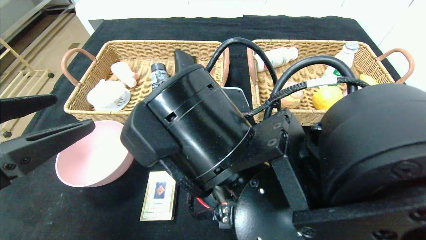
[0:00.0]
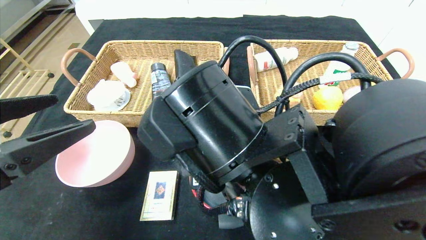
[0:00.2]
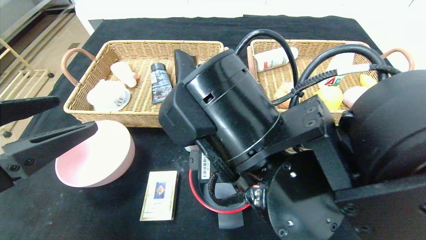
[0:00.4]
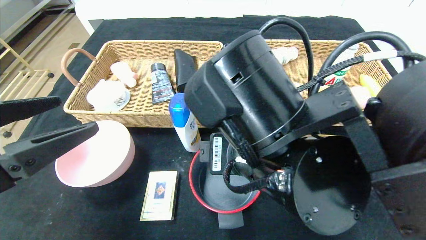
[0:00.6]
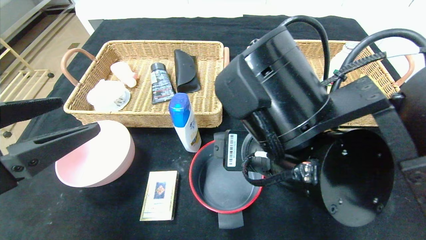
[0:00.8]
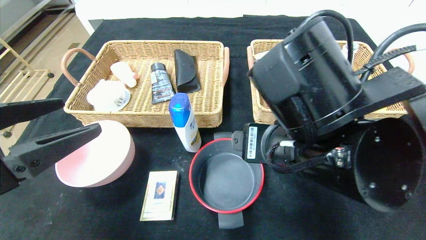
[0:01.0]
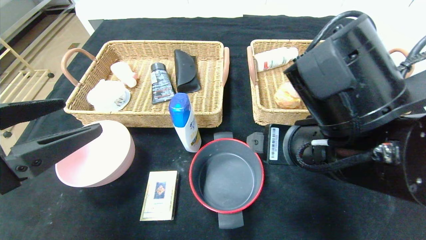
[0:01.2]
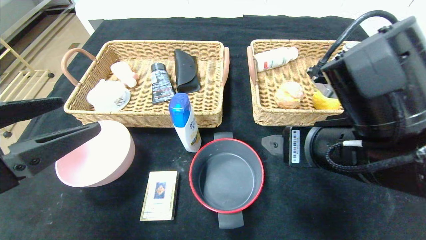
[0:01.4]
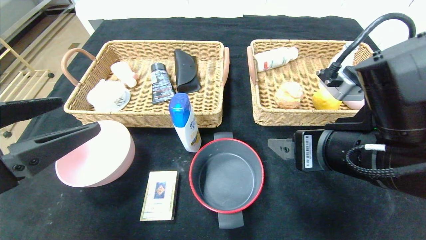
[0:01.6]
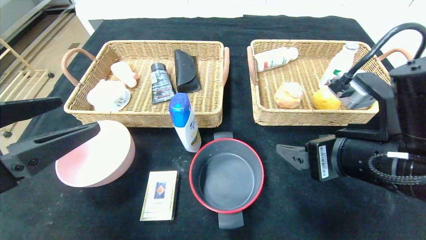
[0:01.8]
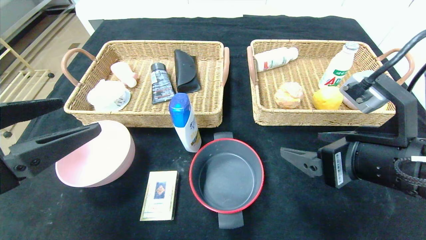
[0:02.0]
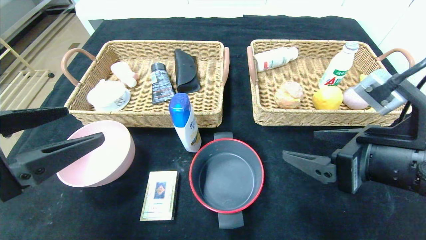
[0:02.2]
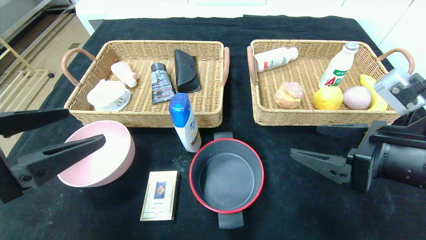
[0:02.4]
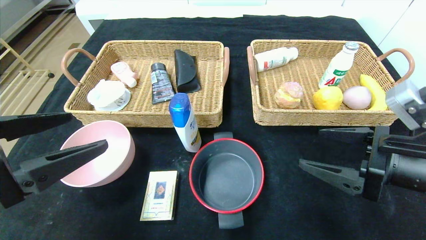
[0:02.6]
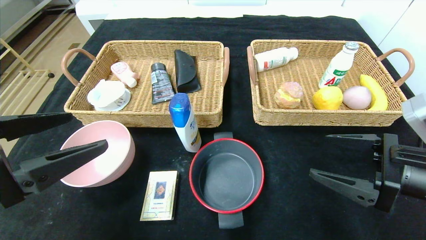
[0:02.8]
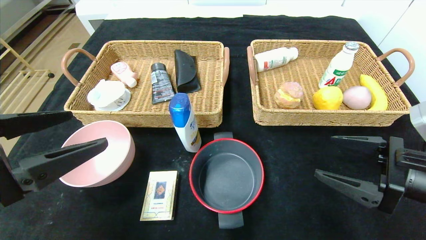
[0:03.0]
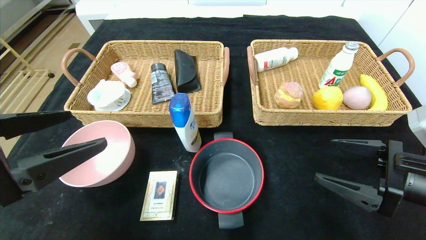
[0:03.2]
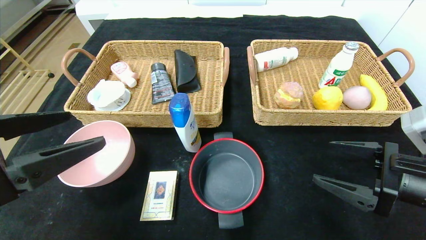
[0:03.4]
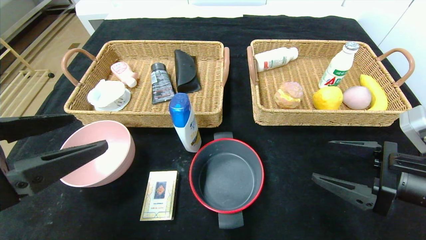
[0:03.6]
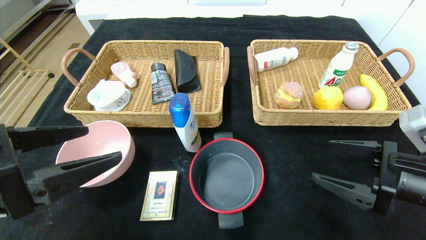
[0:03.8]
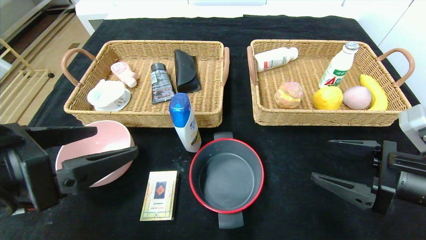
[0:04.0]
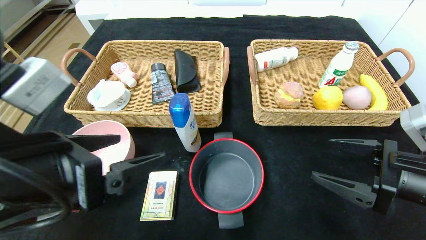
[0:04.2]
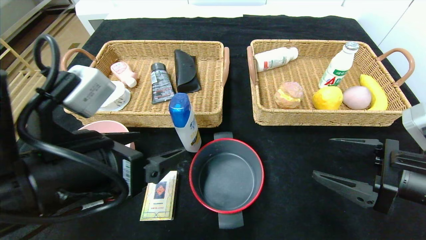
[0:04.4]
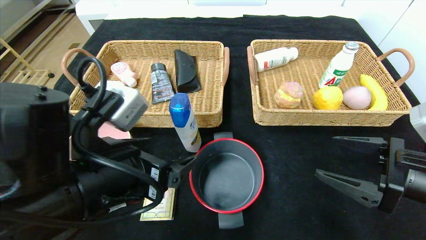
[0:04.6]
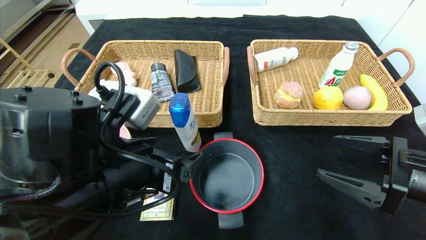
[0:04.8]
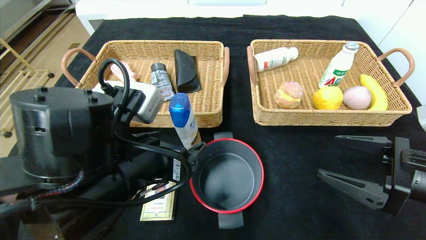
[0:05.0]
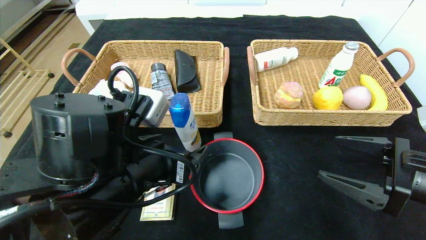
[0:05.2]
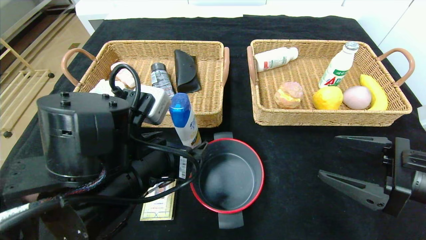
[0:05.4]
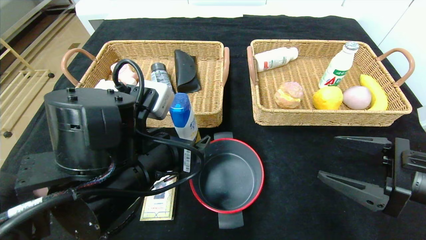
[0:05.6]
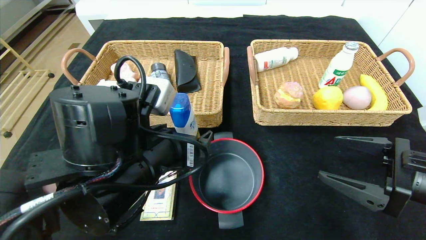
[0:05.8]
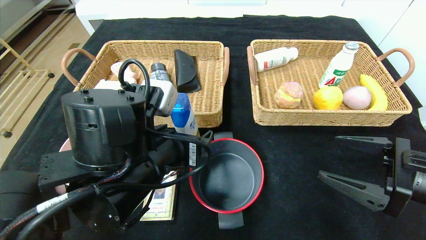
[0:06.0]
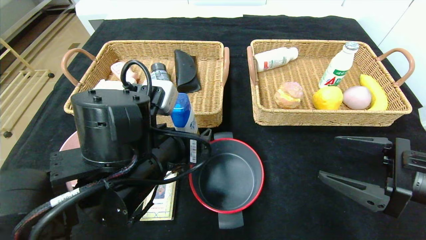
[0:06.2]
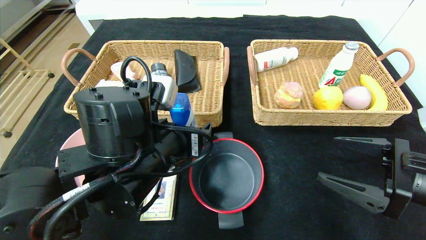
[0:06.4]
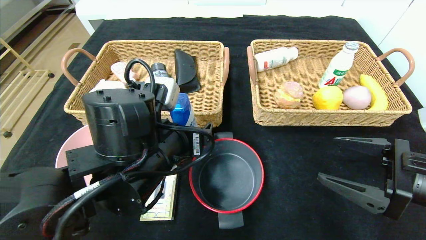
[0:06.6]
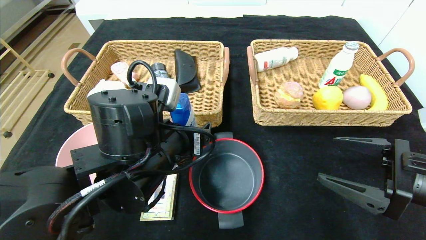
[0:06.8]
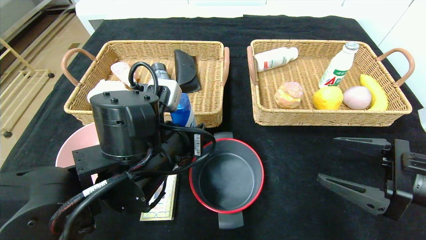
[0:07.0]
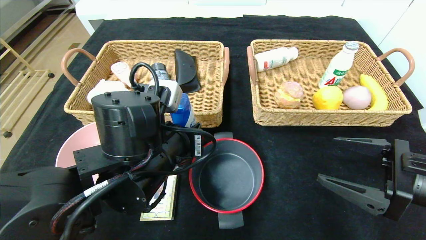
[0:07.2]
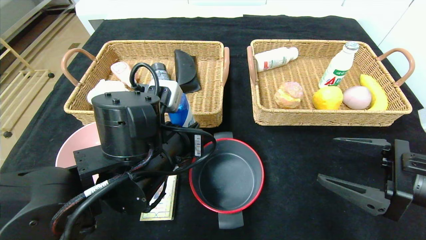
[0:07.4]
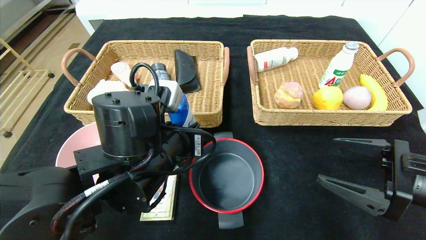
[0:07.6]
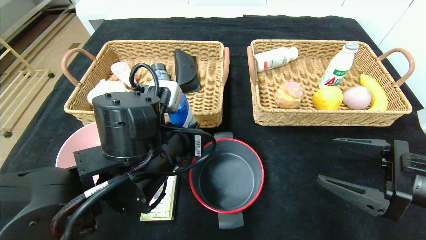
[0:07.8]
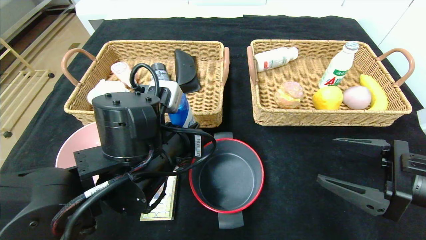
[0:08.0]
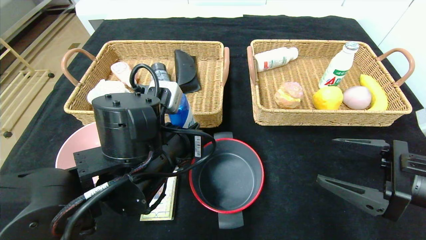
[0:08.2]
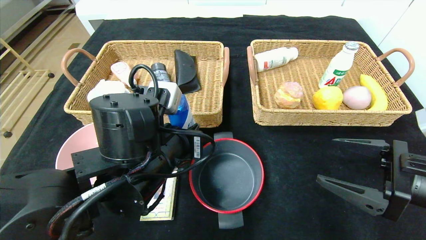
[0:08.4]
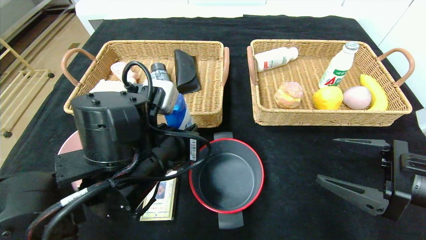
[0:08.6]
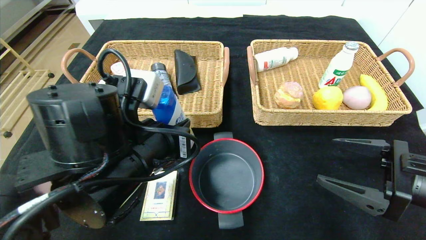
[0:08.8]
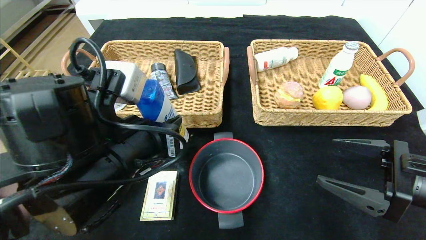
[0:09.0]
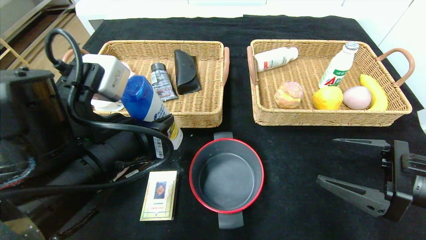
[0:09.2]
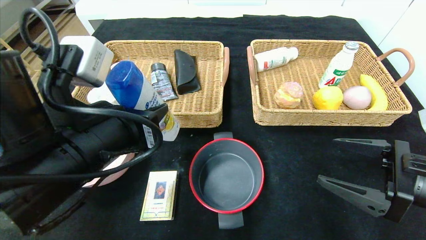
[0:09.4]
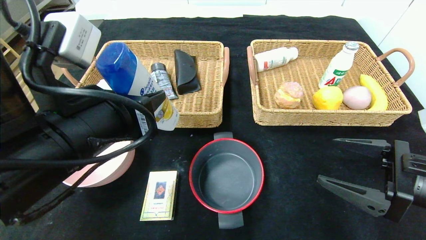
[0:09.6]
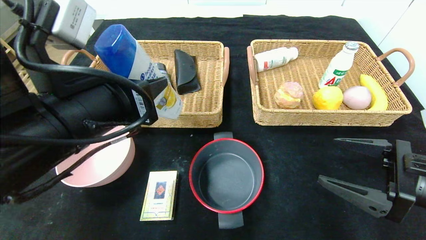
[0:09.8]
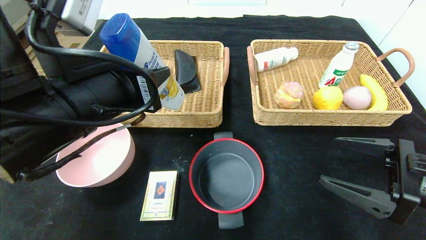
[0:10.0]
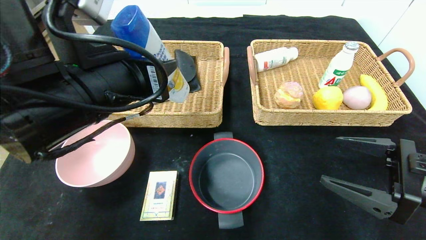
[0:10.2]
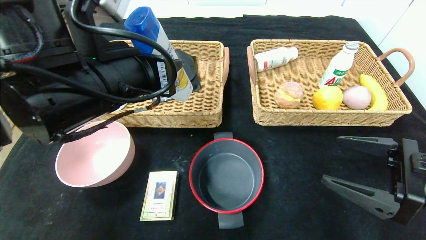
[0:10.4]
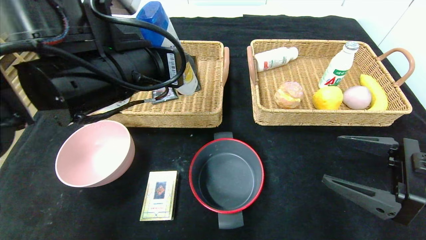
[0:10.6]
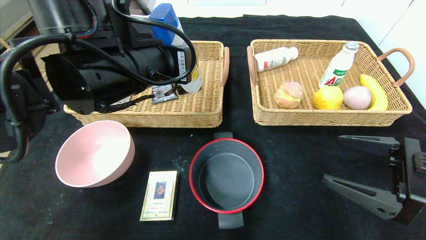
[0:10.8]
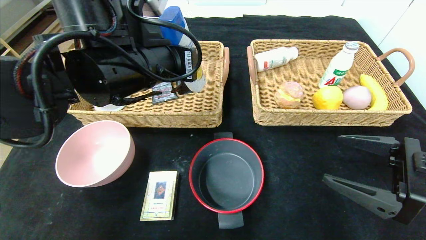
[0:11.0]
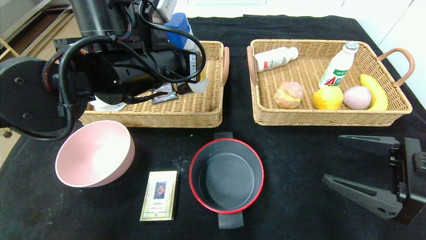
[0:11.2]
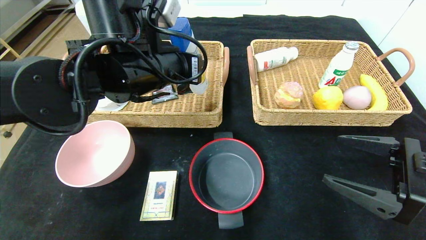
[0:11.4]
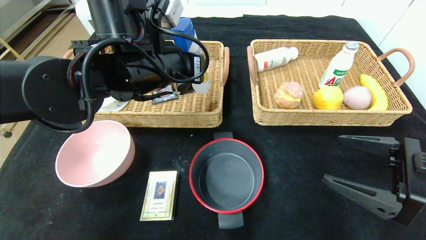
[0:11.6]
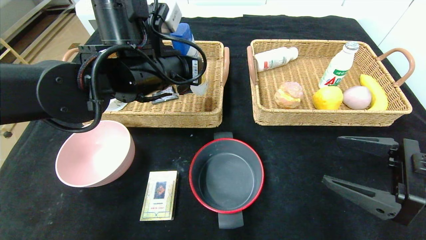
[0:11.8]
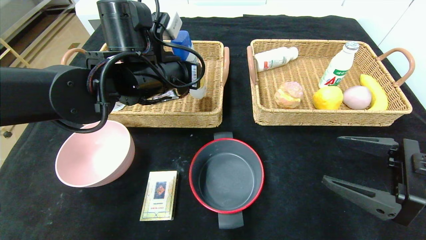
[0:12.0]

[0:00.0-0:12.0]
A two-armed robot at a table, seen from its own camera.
0:00.0 to 0:01.6: The right gripper moves to the right, approximately 15 cm.
0:01.6 to 0:03.0: The right gripper goes roughly 15 cm to the right and downward.
0:03.0 to 0:04.4: The left gripper travels to the right by approximately 10 cm.
0:04.4 to 0:06.0: The left gripper heads to the right and forward, covering roughly 10 cm.
0:06.0 to 0:07.6: The left gripper closes up.
0:07.6 to 0:09.0: The left gripper ends up roughly 5 cm from where it was.
0:09.0 to 0:10.4: The left gripper moves upward, approximately 10 cm.
0:10.4 to 0:12.0: The left gripper goes roughly 10 cm forward.

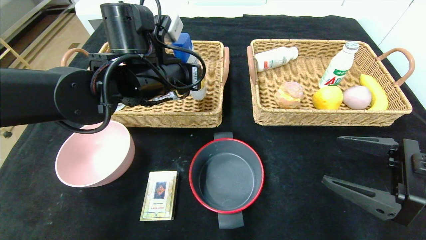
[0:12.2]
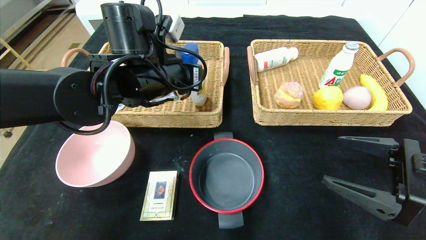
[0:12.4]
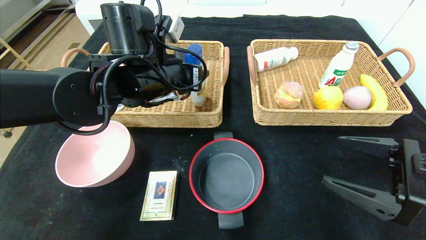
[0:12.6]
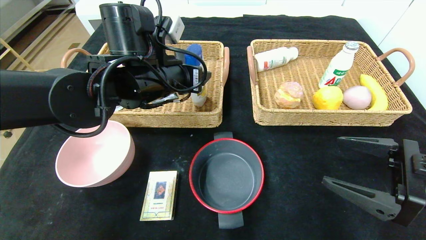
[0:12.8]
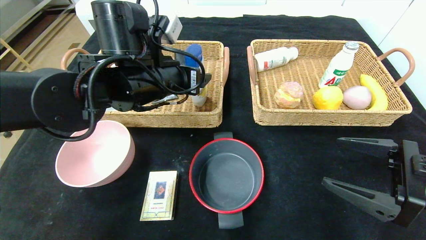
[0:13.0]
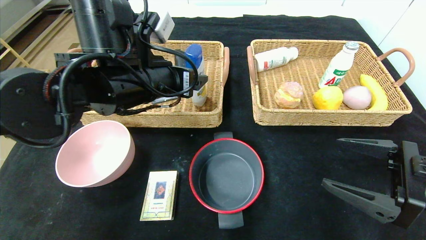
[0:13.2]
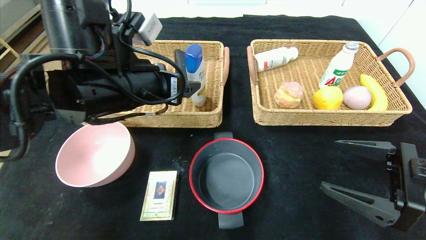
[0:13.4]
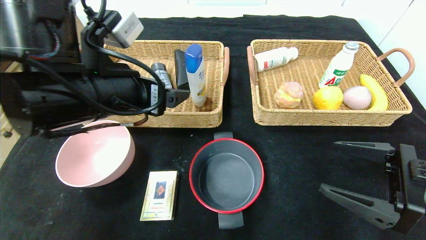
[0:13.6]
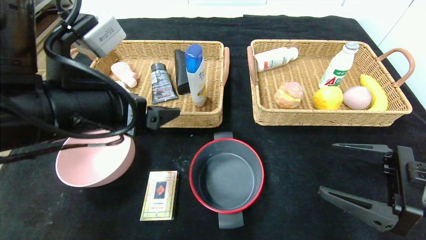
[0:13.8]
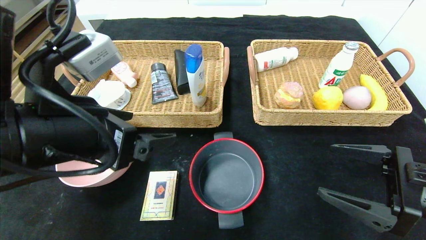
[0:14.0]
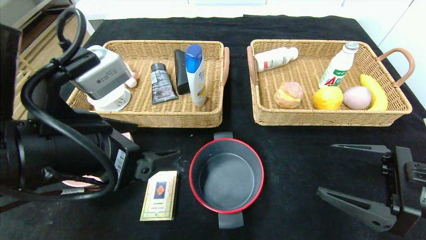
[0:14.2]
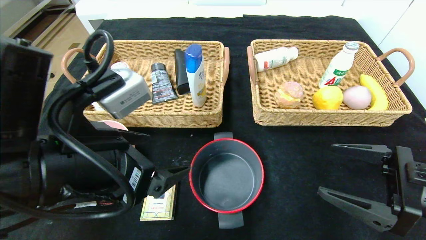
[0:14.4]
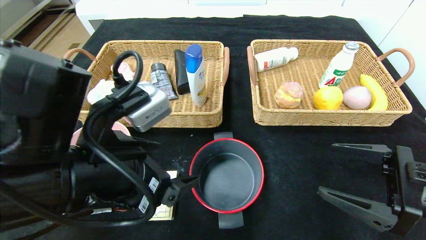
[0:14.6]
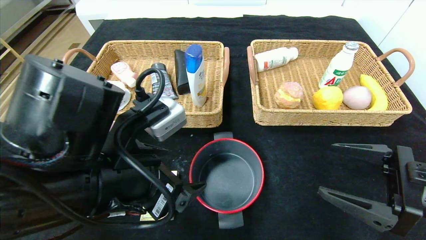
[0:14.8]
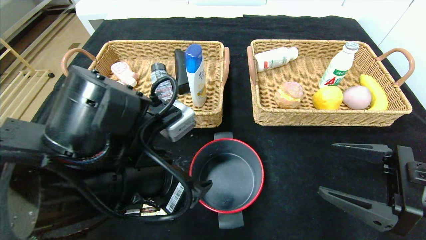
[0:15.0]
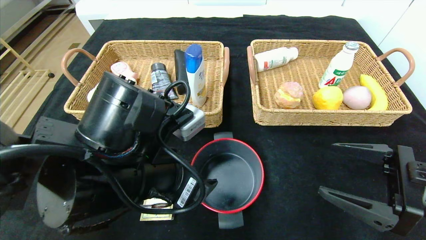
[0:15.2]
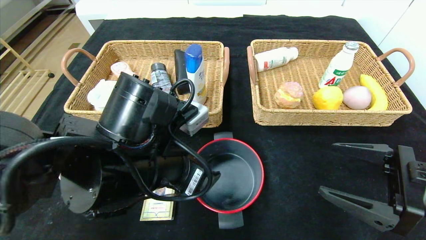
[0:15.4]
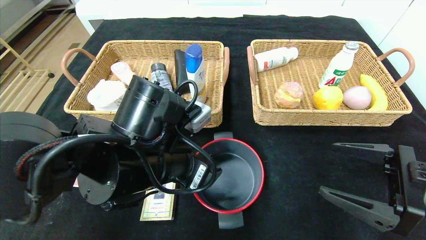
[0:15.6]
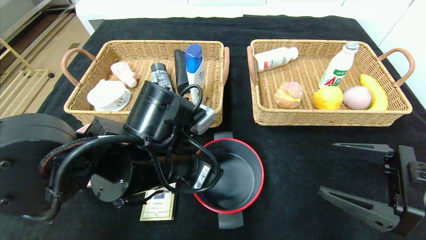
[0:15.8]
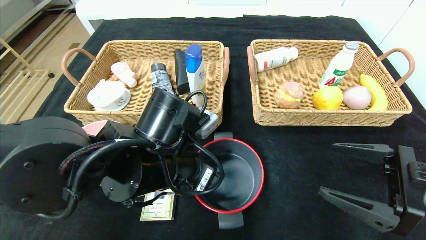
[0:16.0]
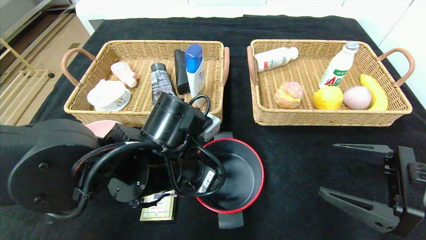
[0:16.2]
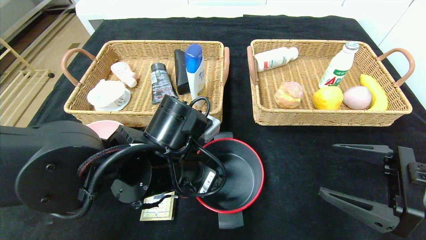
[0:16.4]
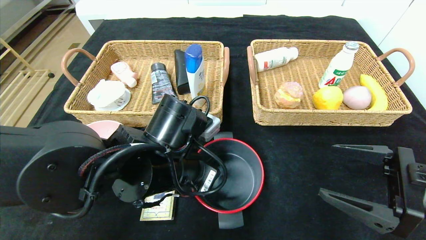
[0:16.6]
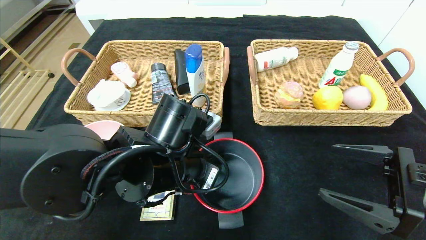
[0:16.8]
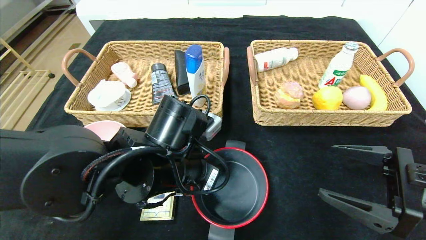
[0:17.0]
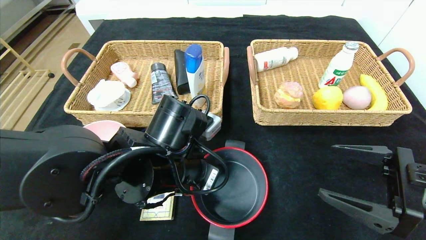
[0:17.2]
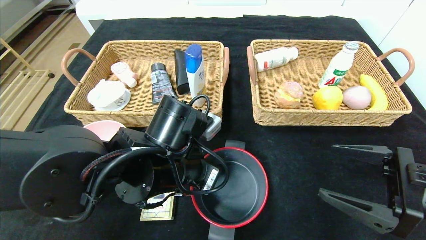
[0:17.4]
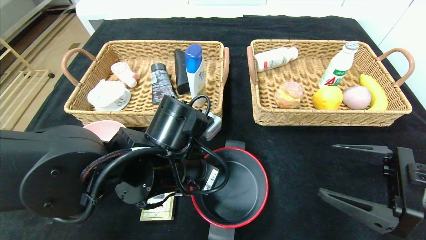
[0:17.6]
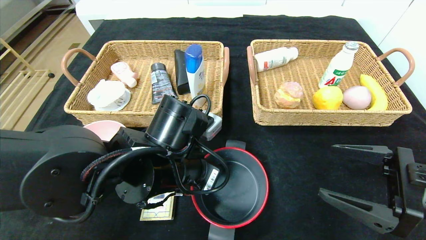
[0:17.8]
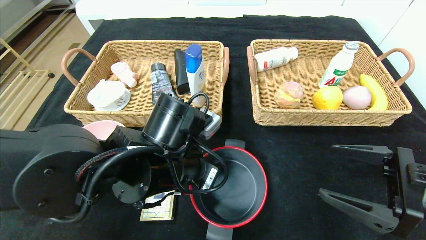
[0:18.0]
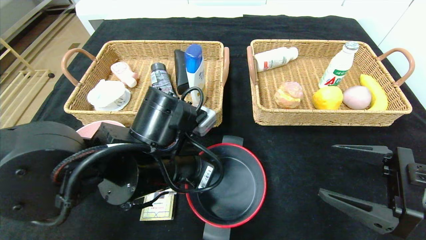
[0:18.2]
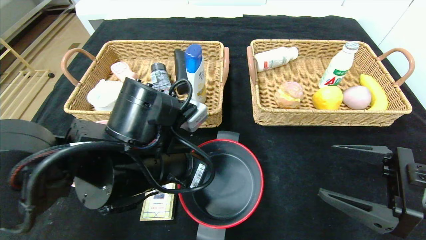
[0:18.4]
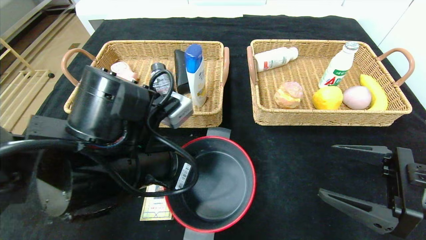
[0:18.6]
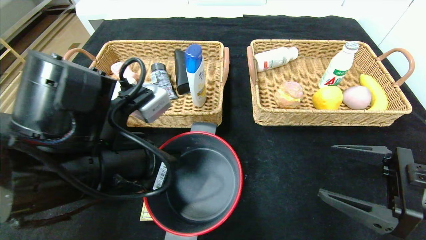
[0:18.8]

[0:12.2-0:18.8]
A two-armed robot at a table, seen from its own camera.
0:12.2 to 0:13.8: The left gripper travels backward by approximately 15 cm, and opens.
0:13.8 to 0:15.4: The left gripper is displaced downward and to the right by some 10 cm.
0:15.4 to 0:17.2: The left gripper closes up.
0:17.2 to 0:18.8: The left gripper moves to the left, upward and backward, approximately 10 cm.
